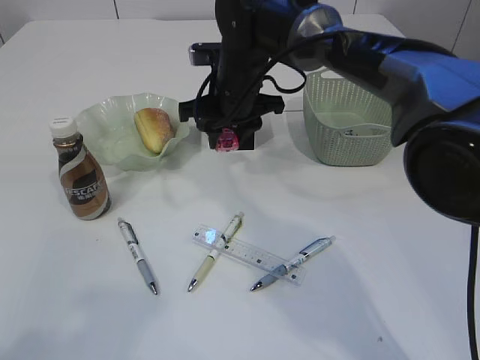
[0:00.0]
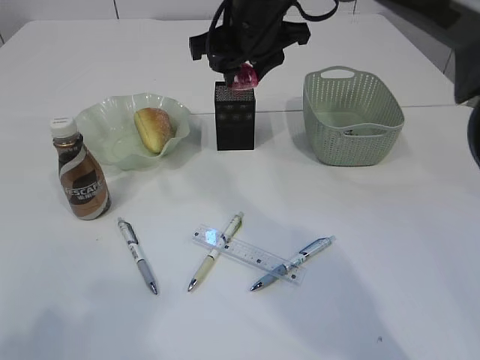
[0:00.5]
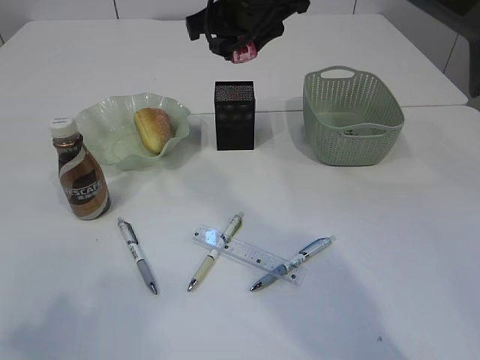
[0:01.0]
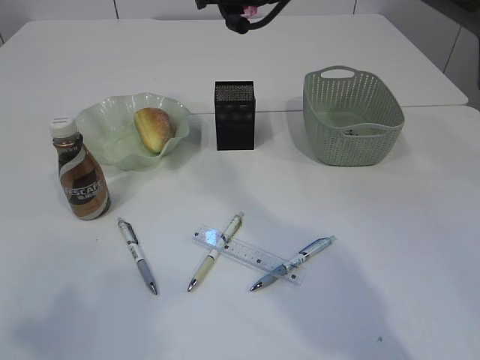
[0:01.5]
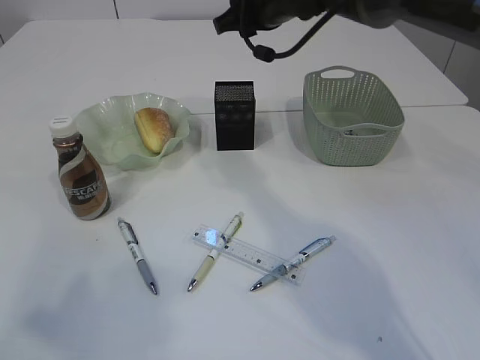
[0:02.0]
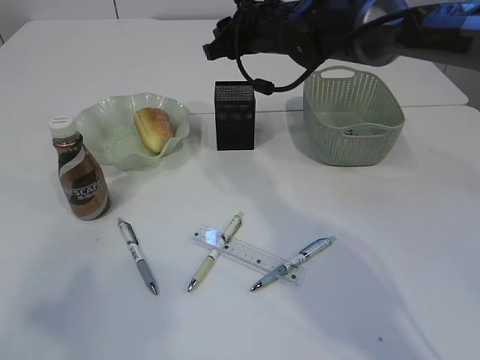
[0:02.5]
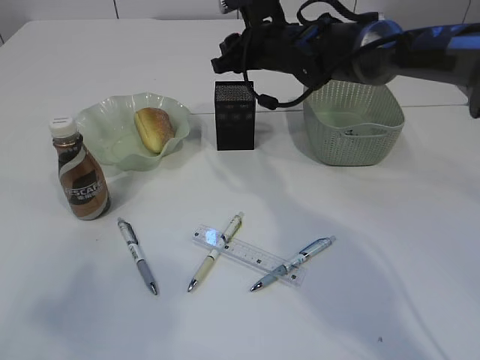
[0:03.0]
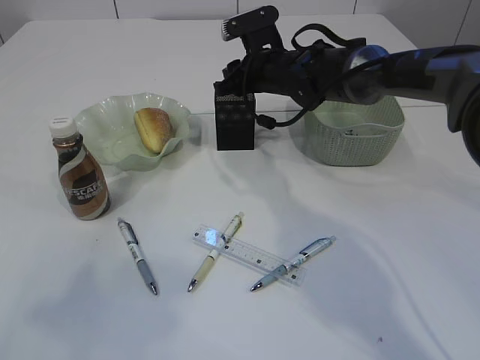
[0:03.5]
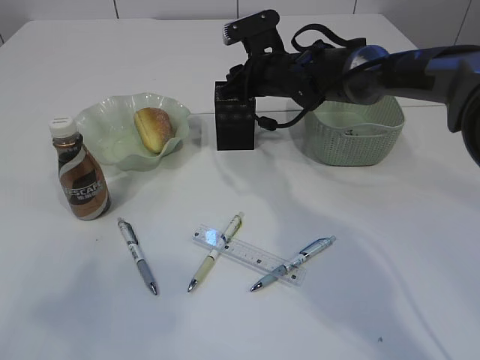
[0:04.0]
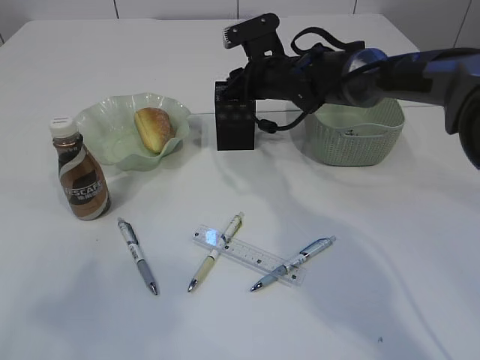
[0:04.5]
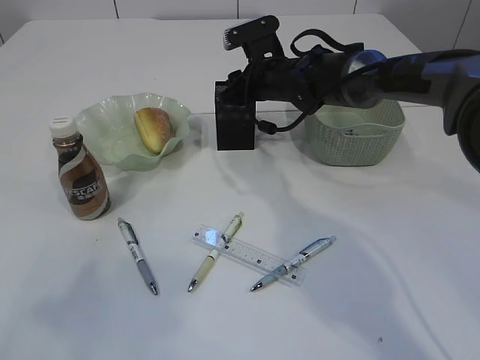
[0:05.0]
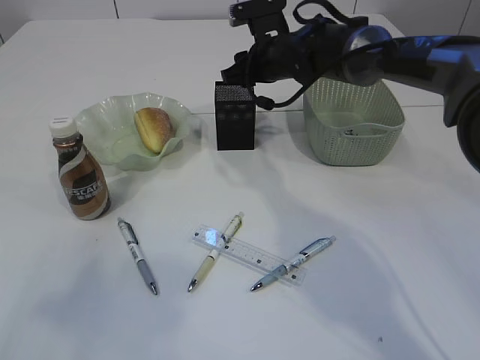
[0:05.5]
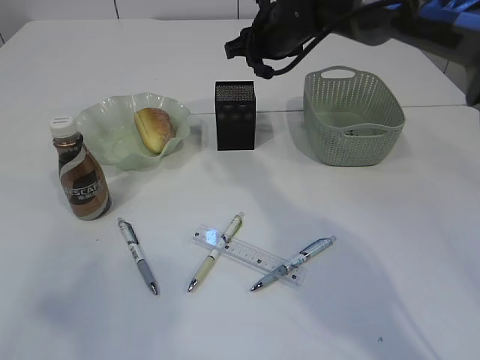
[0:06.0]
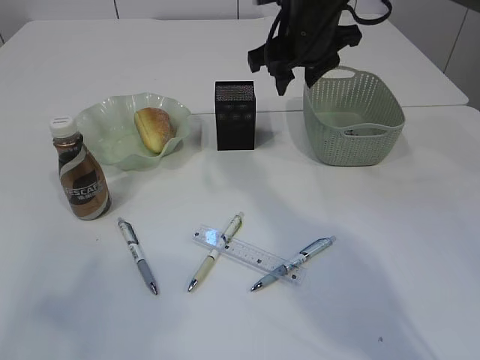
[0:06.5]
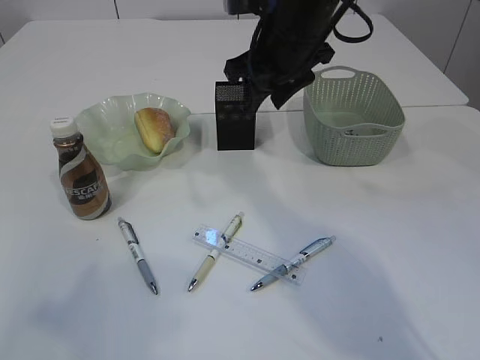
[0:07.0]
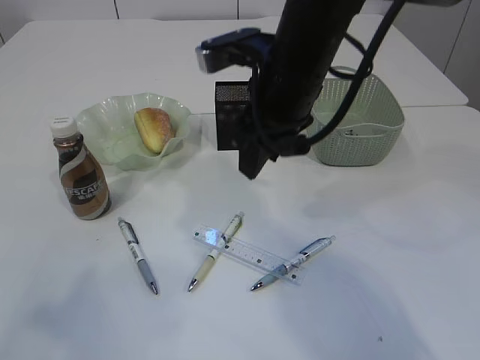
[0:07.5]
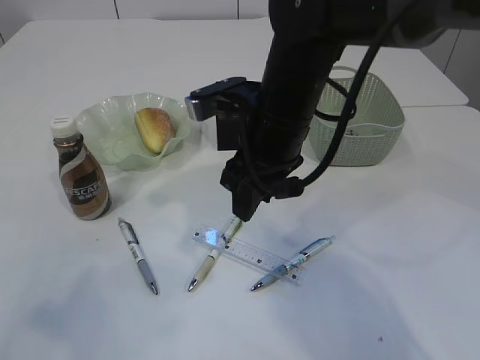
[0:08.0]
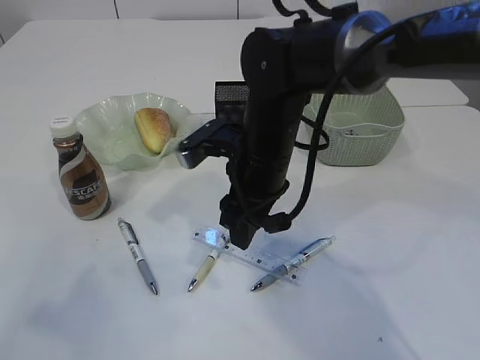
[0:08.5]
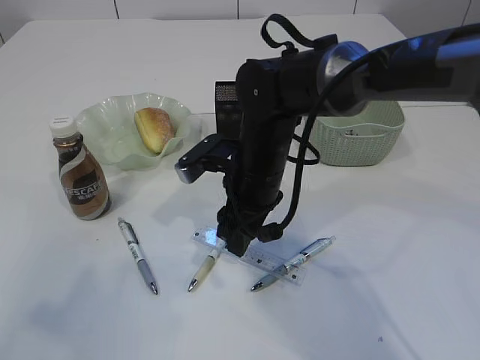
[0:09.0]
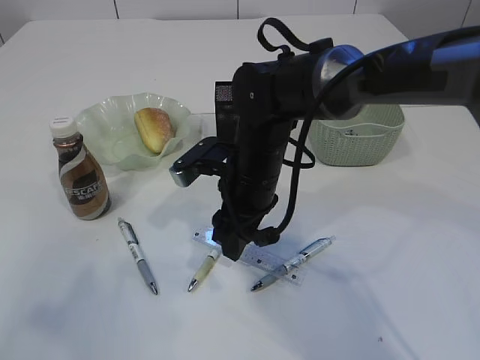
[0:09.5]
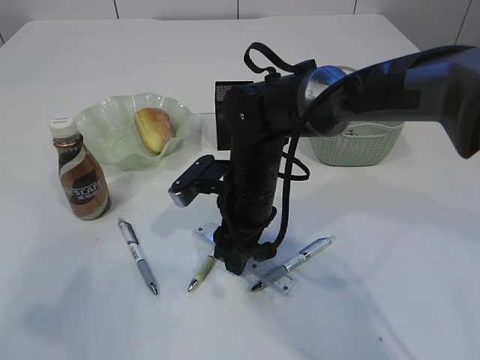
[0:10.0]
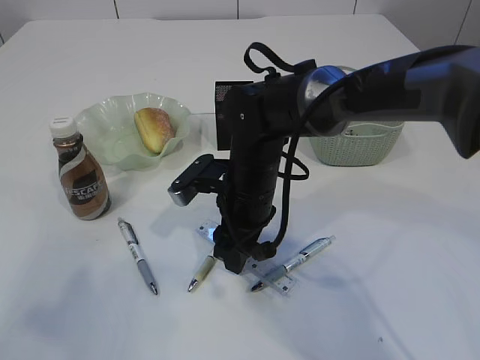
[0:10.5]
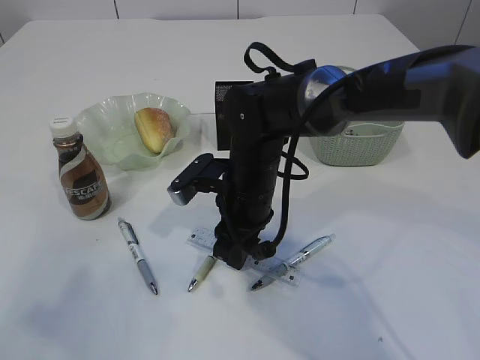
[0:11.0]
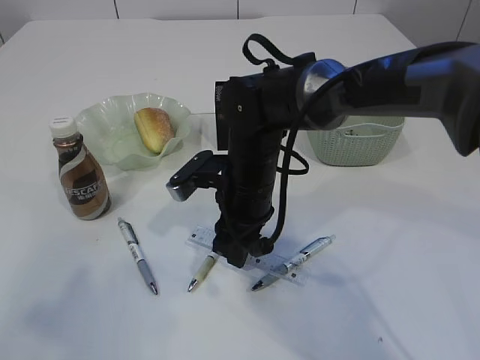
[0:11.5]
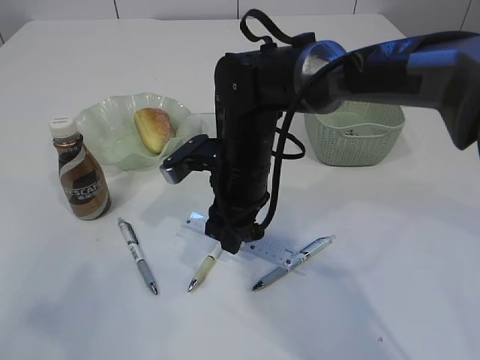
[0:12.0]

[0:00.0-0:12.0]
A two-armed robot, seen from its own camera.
Step, 0:00.5 to 0:06.0: Place the red pencil sharpener into the pen holder.
0:00.0 to 0:02.0: The right gripper travels upward and to the right by roughly 10 cm.
0:02.0 to 0:04.0: The right gripper travels downward by approximately 10 cm.
0:04.0 to 0:06.0: The right gripper moves upward, some 5 cm.
0:06.0 to 0:08.0: The right gripper goes approximately 15 cm backward.
0:08.0 to 0:10.0: The right gripper heads downward, covering roughly 10 cm.
0:10.0 to 0:12.0: There are only small adjustments of the grippers.

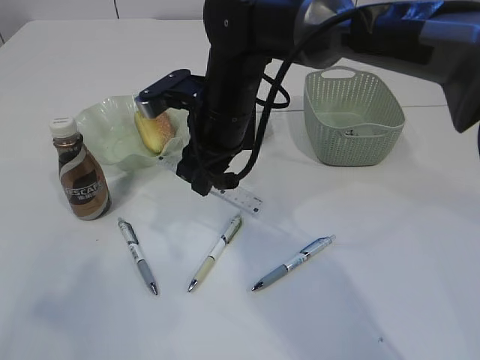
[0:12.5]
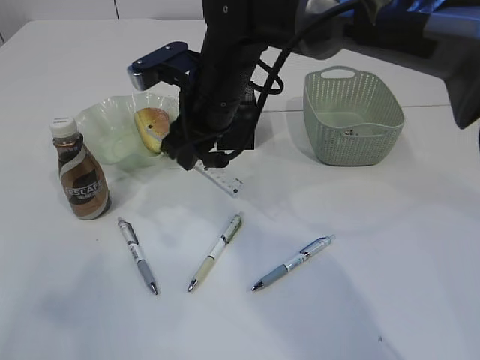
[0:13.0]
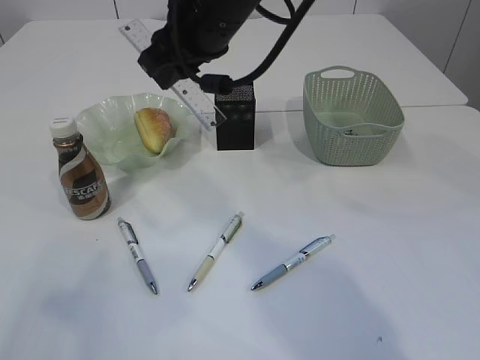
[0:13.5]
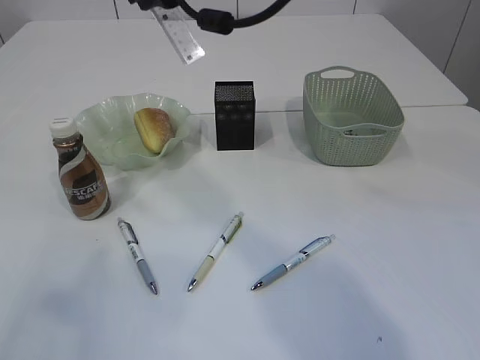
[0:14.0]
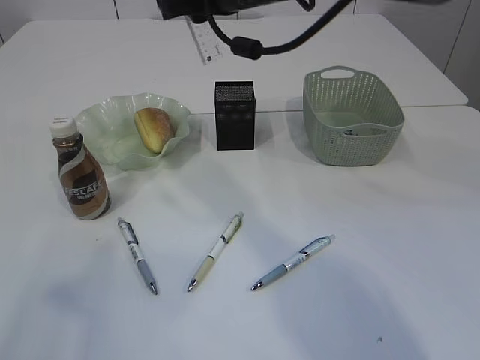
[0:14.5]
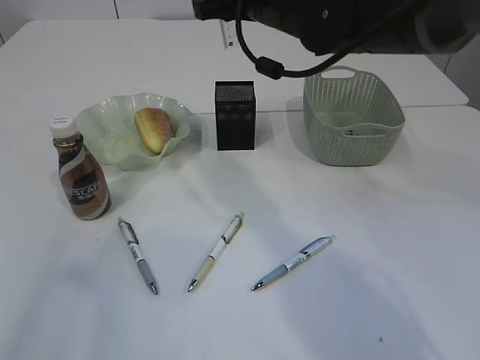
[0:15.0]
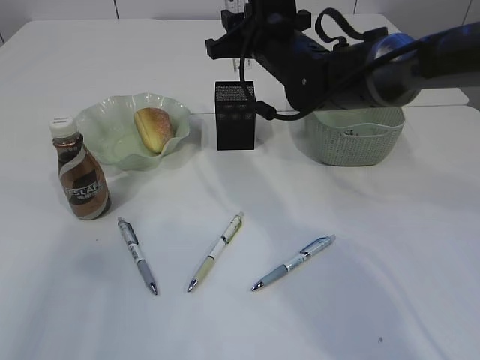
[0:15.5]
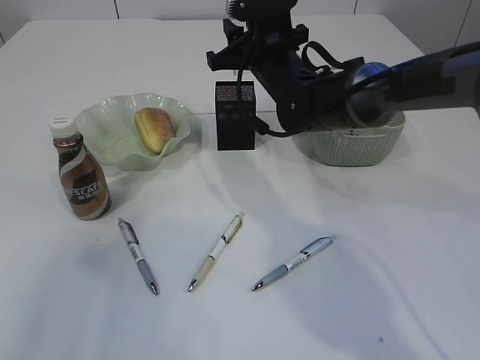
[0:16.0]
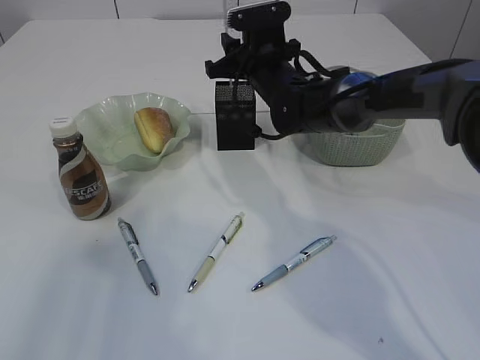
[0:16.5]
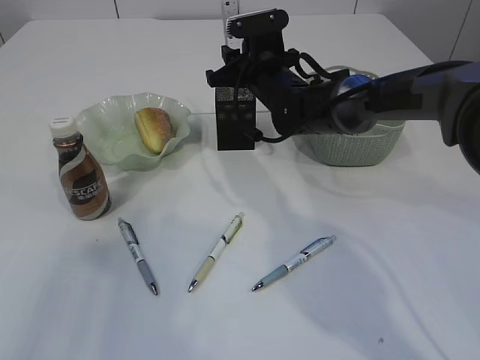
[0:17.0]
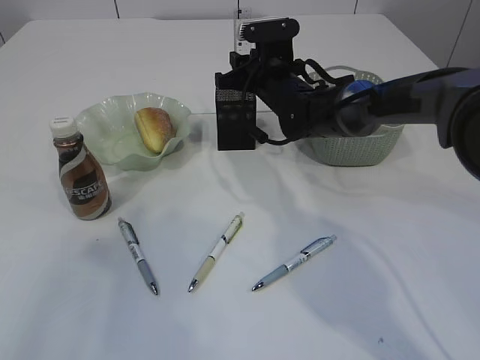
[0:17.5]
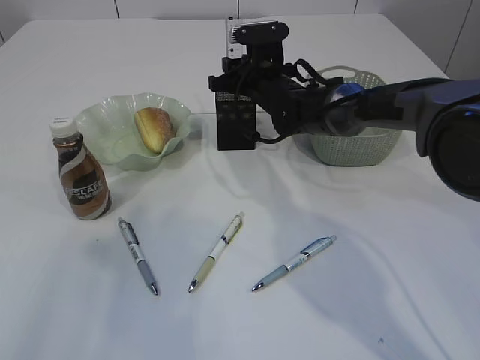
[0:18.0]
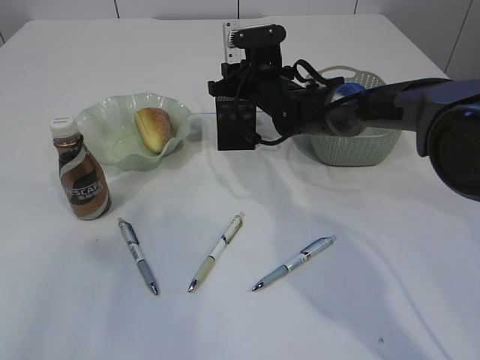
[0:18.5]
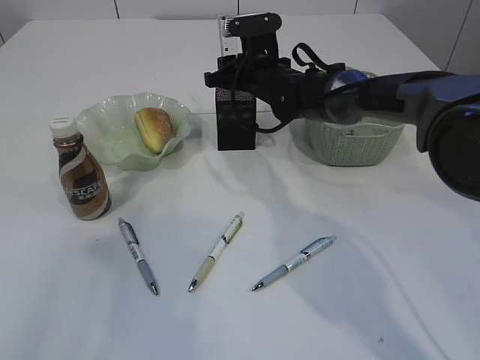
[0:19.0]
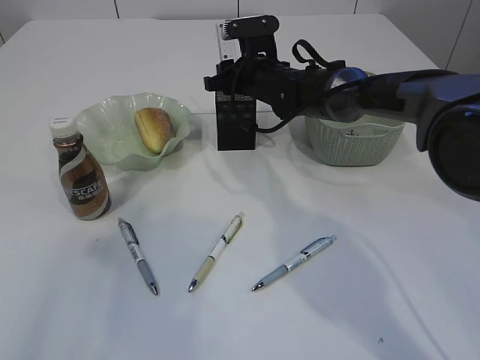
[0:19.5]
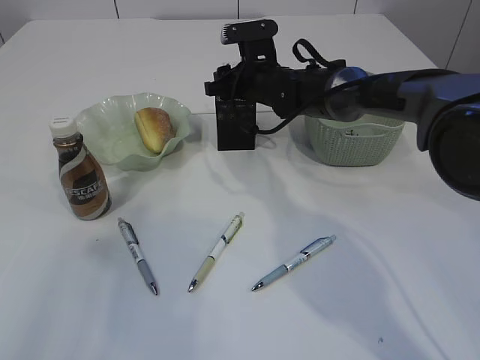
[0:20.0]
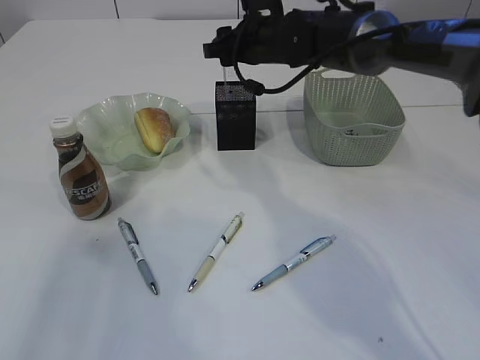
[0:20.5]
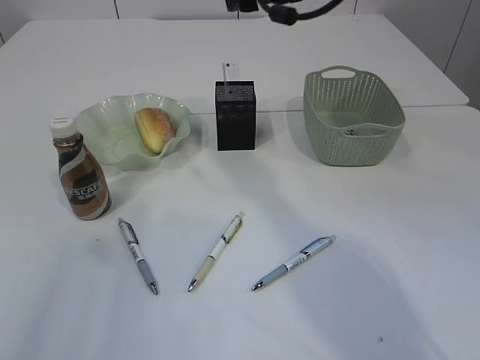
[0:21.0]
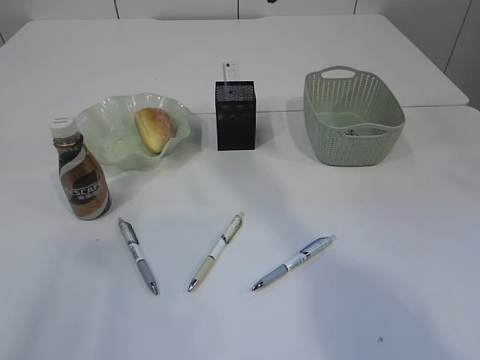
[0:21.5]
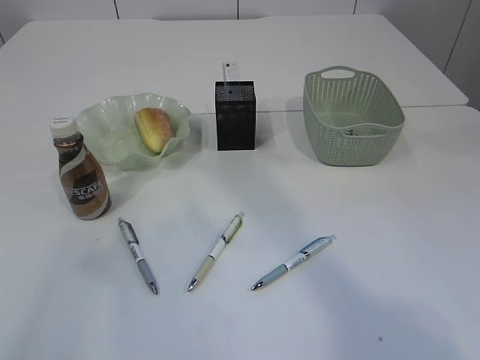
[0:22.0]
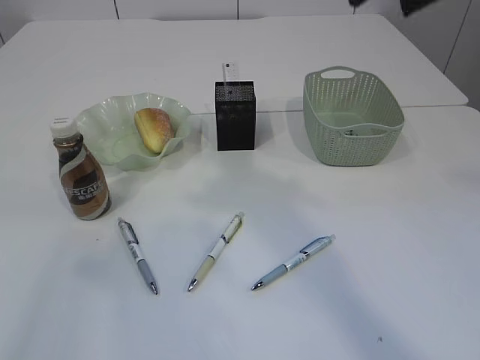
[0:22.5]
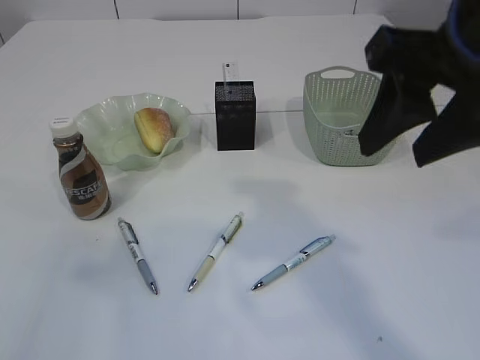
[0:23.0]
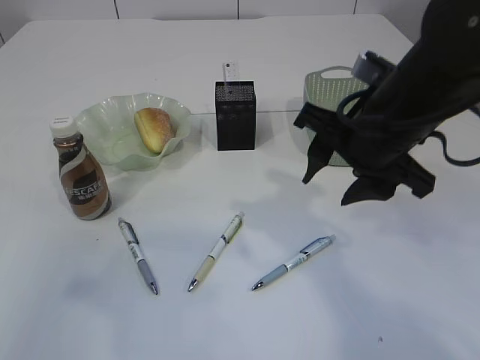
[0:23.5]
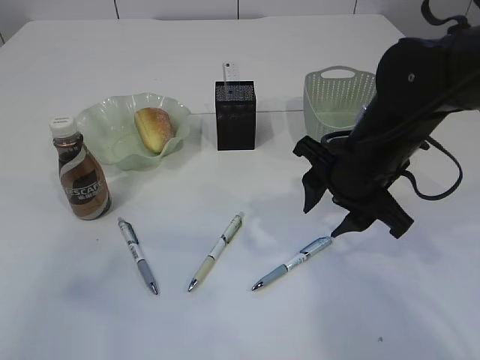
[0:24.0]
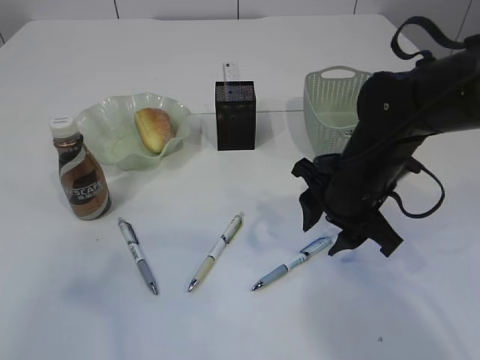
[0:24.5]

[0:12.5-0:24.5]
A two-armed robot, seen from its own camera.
Step, 0:12.5 to 0:20.0: Place the ruler into the pen holder.
0:12.5 to 0:14.5: The right gripper is displaced upward by about 15 cm.
0:14.5 to 0:16.5: The right gripper shifts about 15 cm downward and forward.
0:16.5 to 0:18.5: The grippers stay close to where they were, moving slightly.
0:18.5 to 0:20.5: The right gripper moves upward, approximately 10 cm.
0:20.5 to 0:22.5: The right gripper is displaced backward and upward by roughly 35 cm.
0:22.5 to 0:24.5: The right gripper is displaced downward by approximately 30 cm.

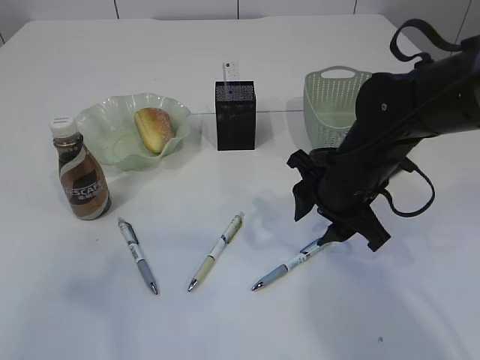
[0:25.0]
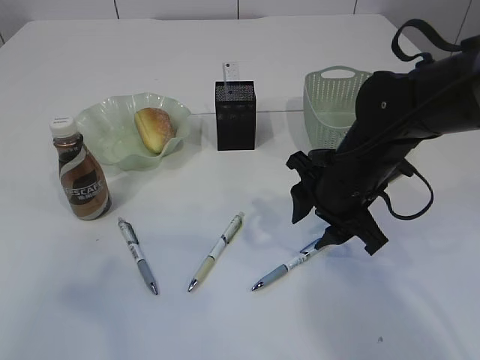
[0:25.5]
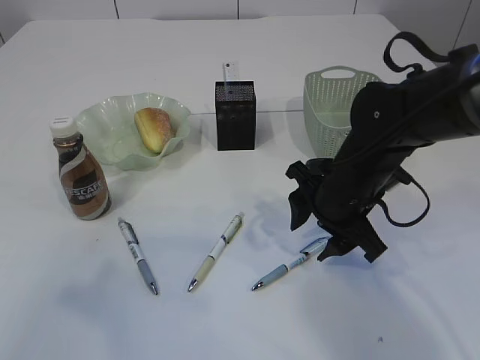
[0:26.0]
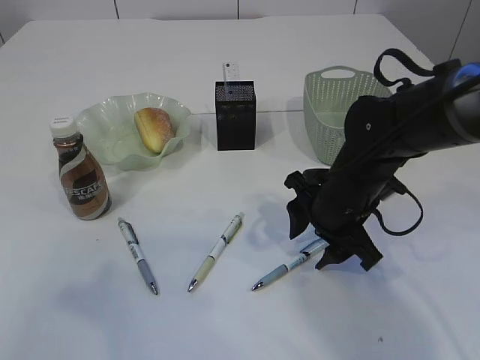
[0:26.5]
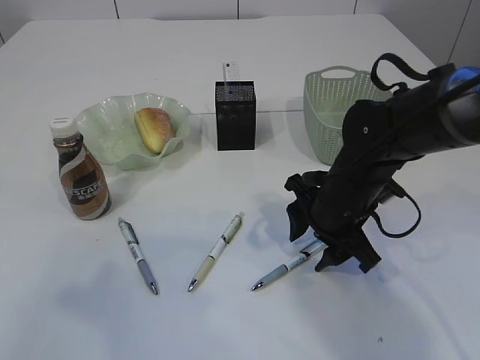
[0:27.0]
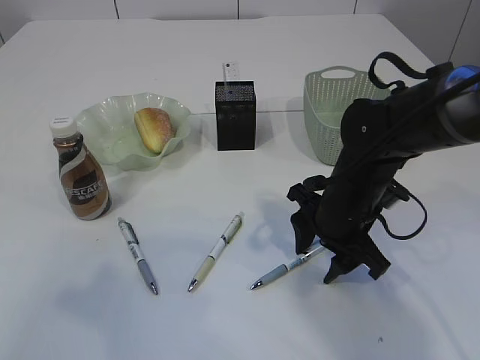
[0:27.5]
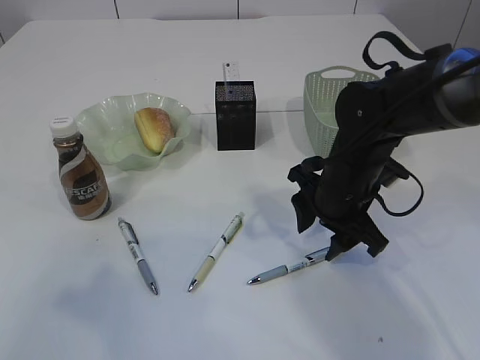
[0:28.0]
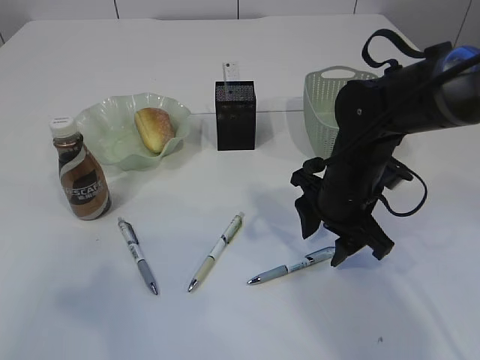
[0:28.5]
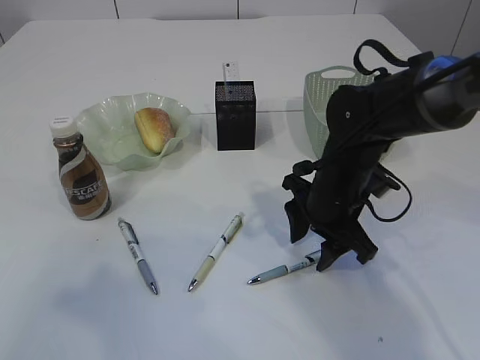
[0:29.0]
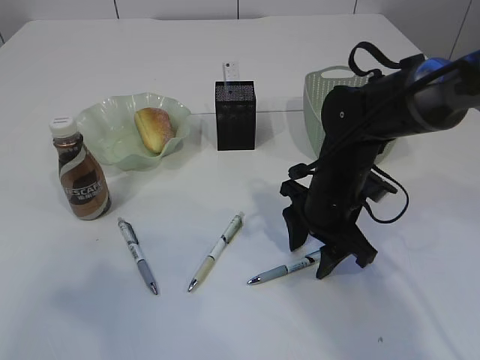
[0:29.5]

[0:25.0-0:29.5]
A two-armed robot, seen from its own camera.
0:25.0 to 0:29.5: The grippers stay close to where they were, moving slightly.
